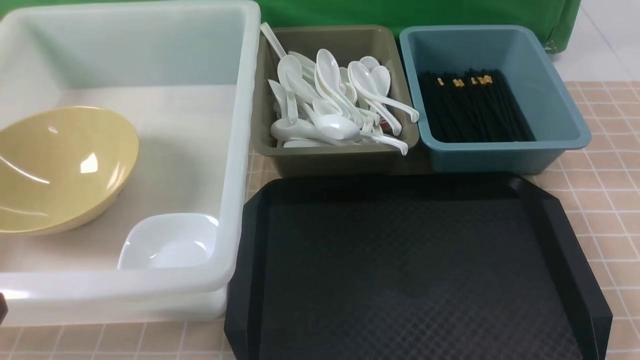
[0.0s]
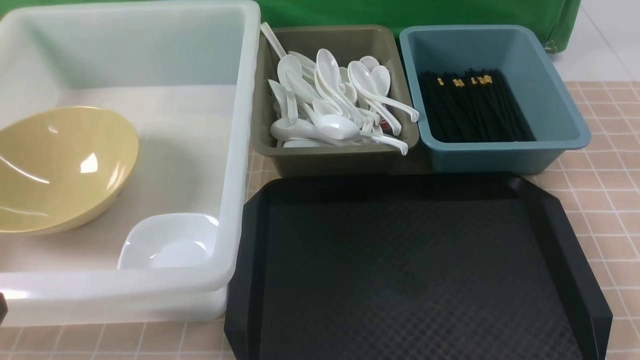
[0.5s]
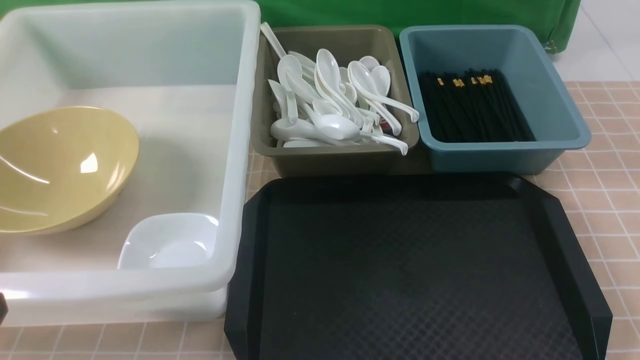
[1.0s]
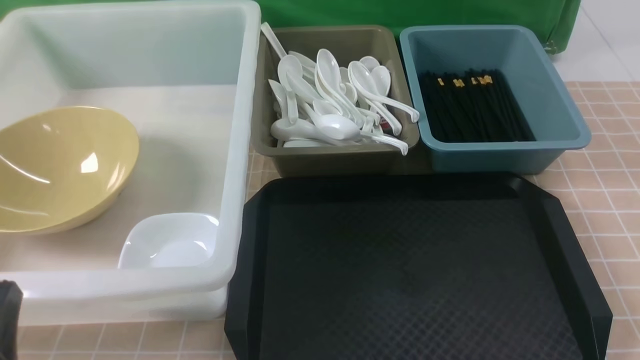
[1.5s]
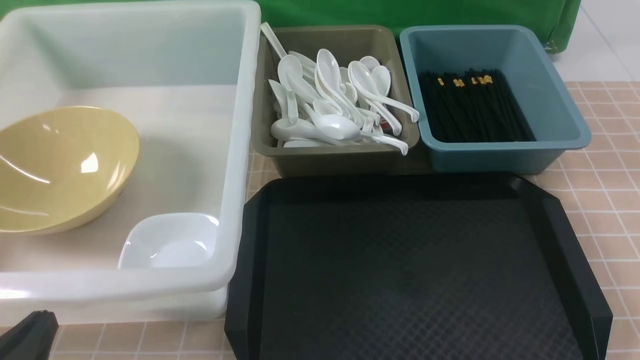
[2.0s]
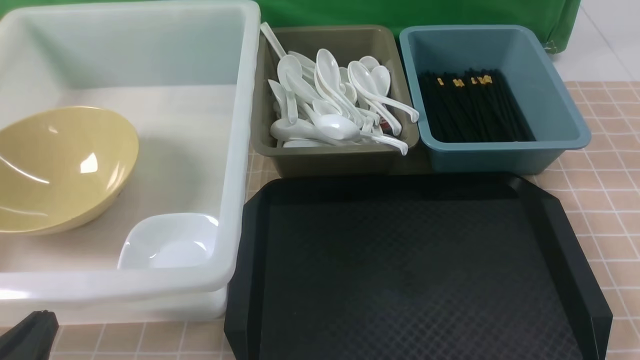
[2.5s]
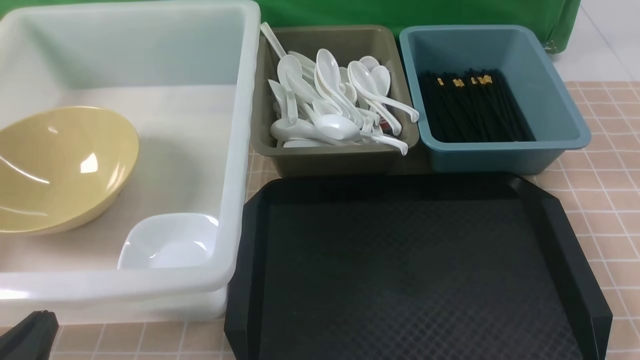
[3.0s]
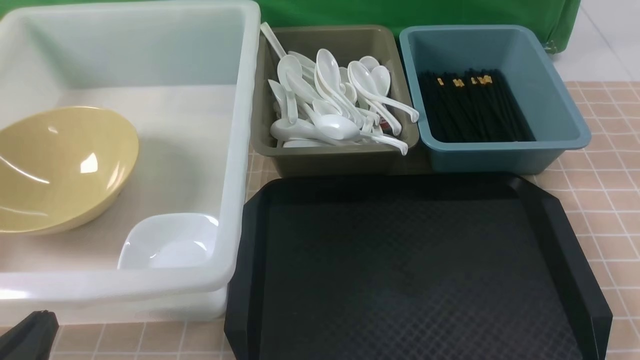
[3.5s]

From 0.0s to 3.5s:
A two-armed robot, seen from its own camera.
Task of the whole recording: on brown table put chopsticks spoon bowls plates into blue grey white boxes.
From 0.0s to 2.0s: The left gripper moves downward, roughly 10 cm.
From 2.0s to 3.5s: The two grippers keep their place.
